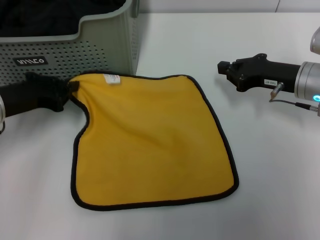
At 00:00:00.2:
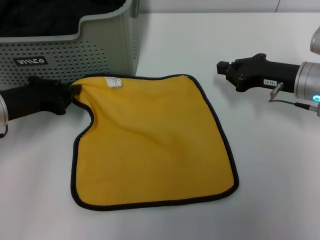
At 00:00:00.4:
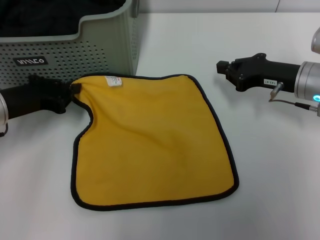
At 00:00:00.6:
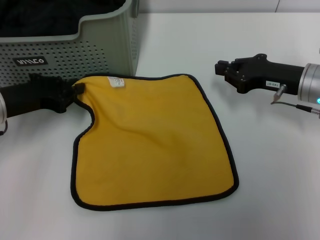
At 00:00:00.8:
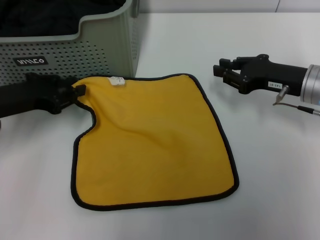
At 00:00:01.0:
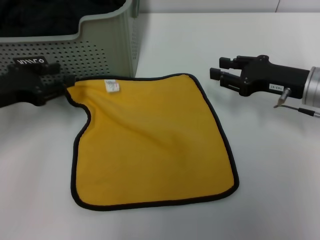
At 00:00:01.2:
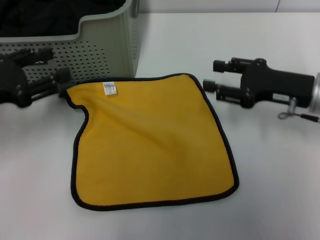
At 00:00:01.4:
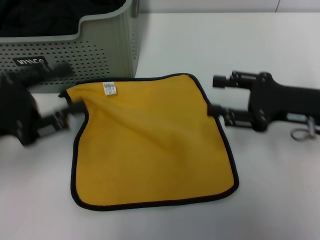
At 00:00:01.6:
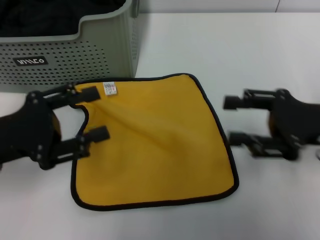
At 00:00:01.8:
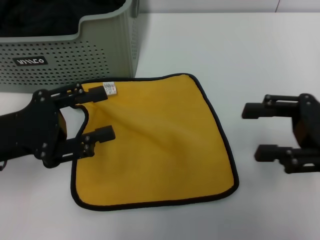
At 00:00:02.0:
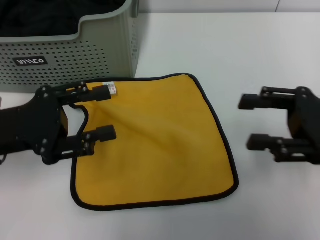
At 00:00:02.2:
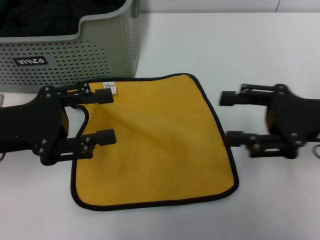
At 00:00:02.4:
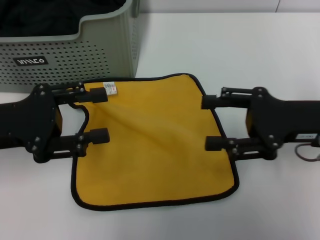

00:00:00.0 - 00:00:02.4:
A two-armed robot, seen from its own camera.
Task of the whole recording: pick up the towel from the storage box and lay it flat on the table.
00:00:00.0 - 00:00:01.2: The right gripper opens up. The left gripper ends up approximately 5 cm from where it was, and opens.
